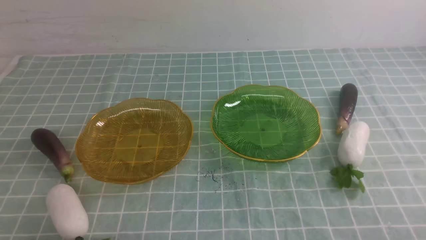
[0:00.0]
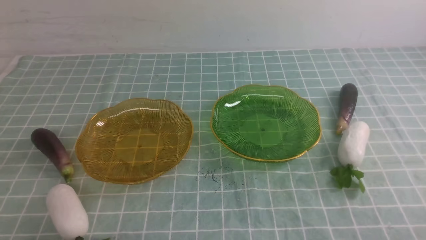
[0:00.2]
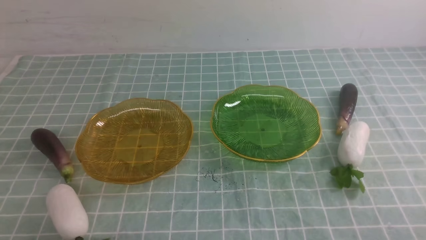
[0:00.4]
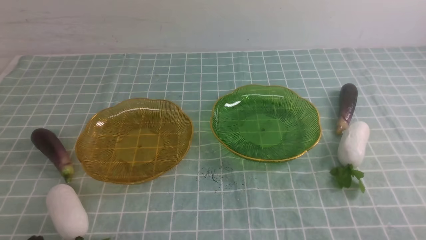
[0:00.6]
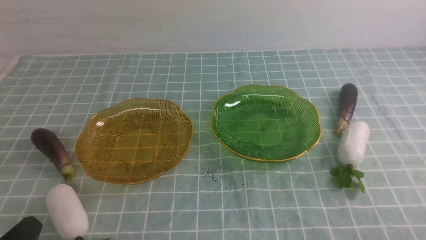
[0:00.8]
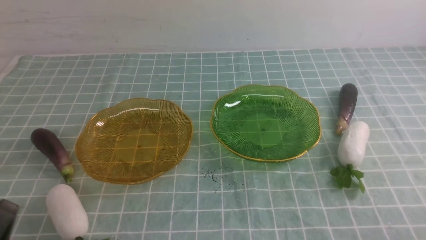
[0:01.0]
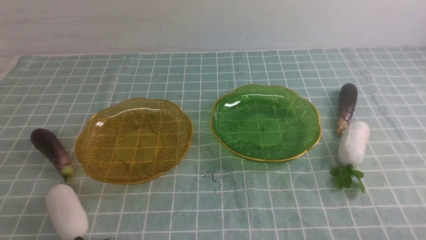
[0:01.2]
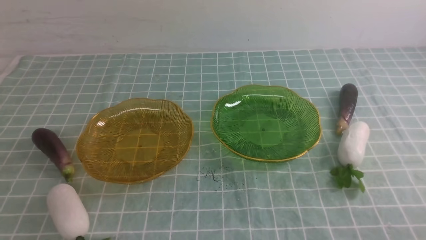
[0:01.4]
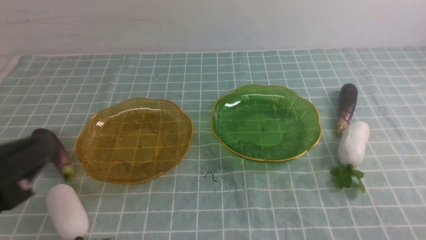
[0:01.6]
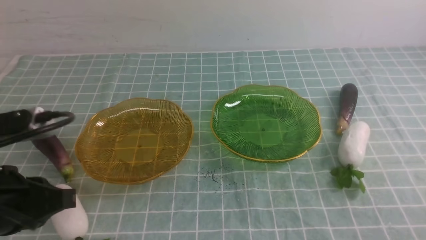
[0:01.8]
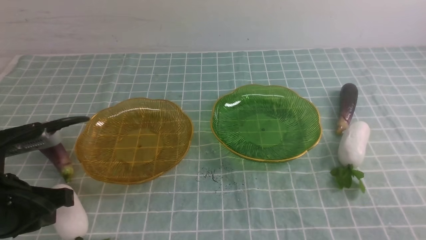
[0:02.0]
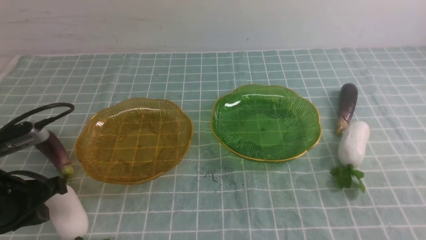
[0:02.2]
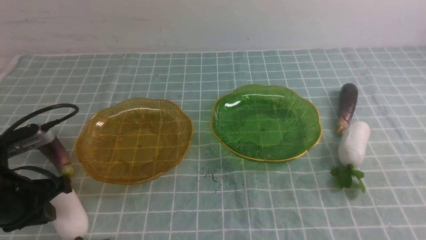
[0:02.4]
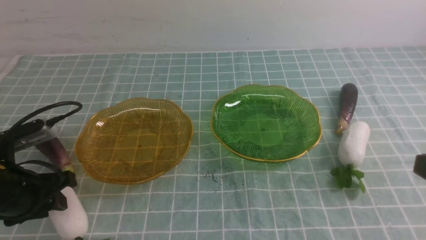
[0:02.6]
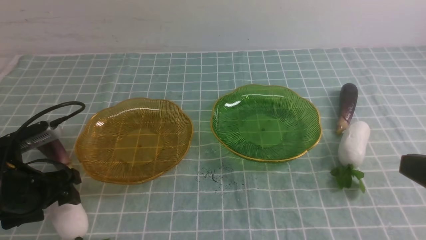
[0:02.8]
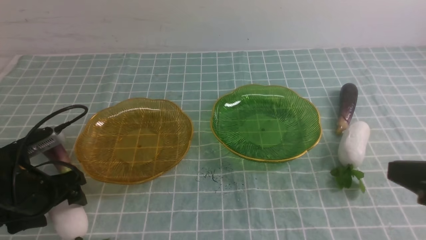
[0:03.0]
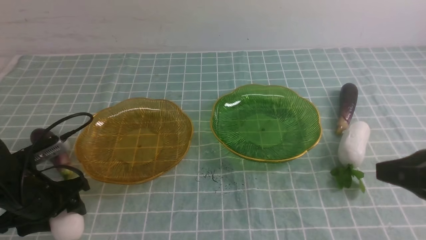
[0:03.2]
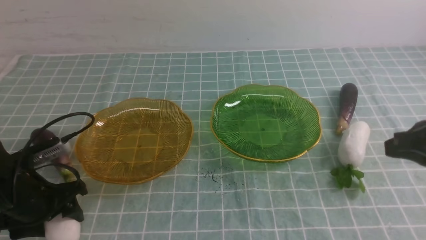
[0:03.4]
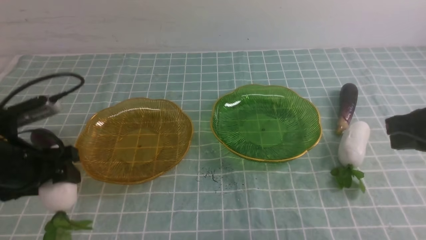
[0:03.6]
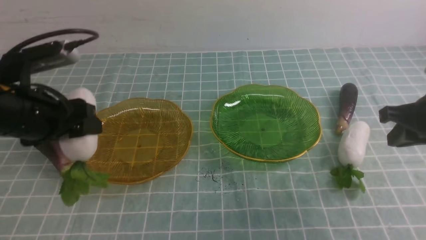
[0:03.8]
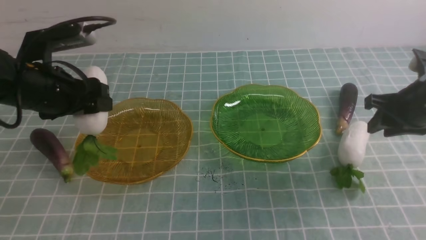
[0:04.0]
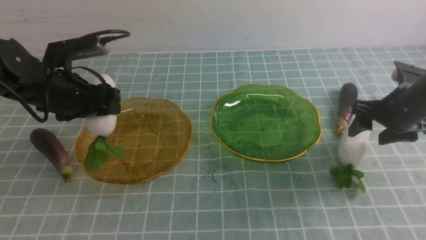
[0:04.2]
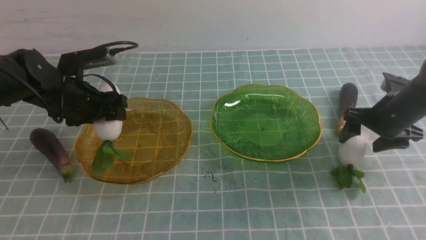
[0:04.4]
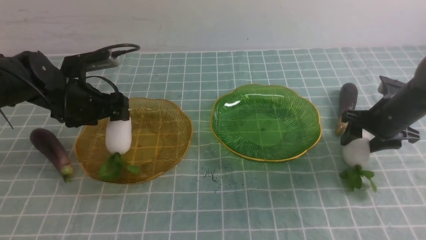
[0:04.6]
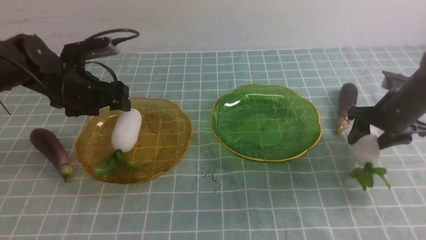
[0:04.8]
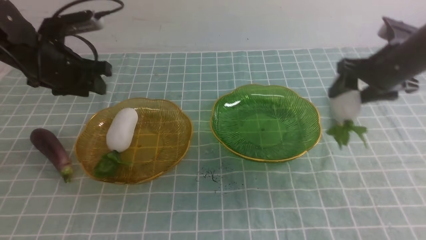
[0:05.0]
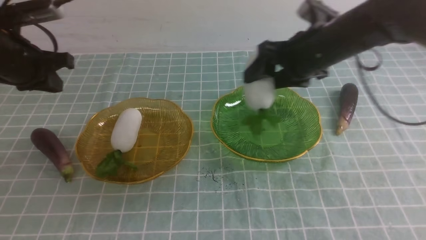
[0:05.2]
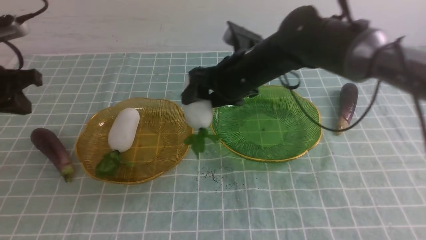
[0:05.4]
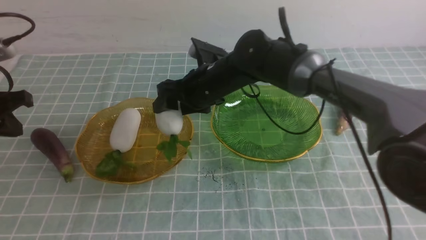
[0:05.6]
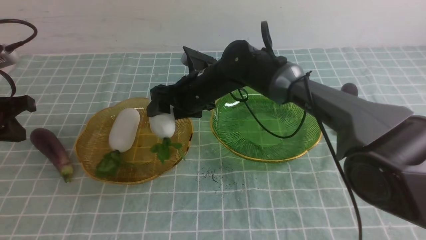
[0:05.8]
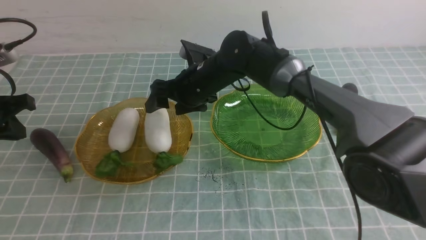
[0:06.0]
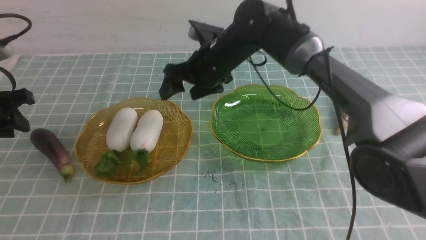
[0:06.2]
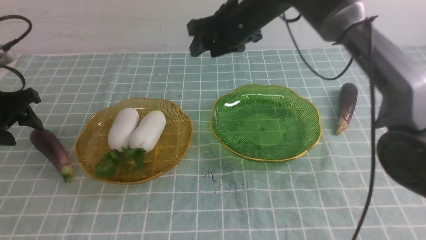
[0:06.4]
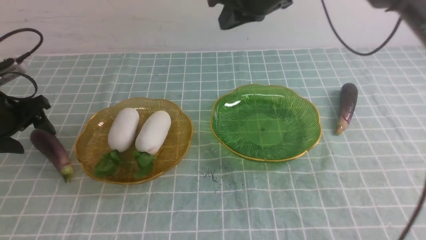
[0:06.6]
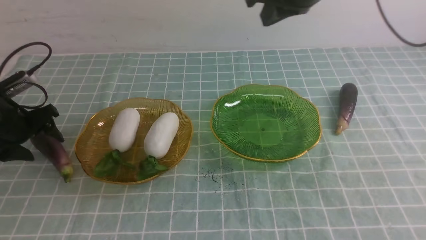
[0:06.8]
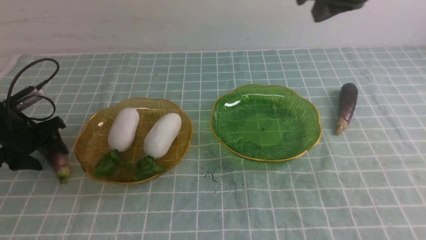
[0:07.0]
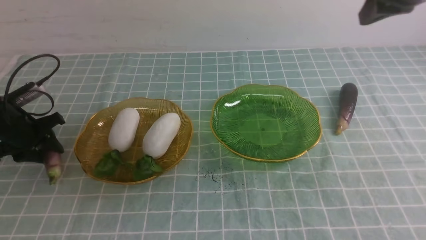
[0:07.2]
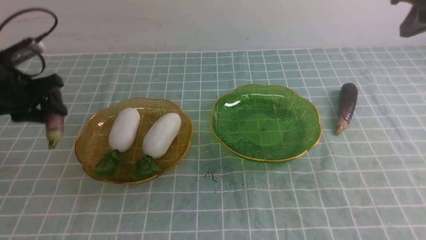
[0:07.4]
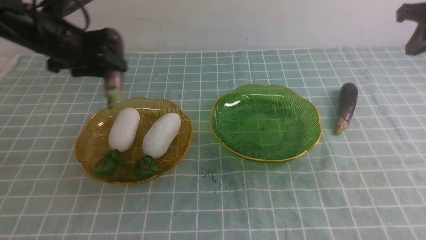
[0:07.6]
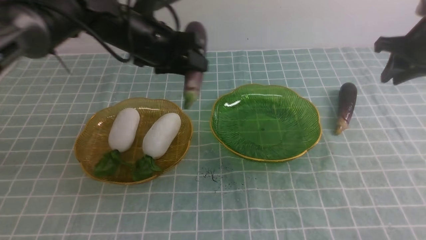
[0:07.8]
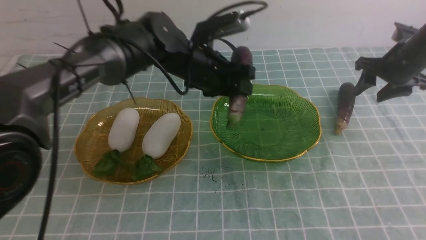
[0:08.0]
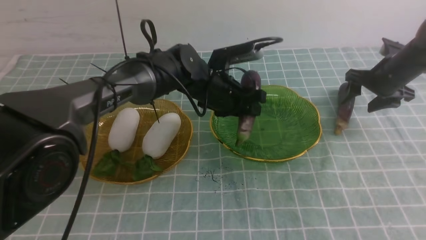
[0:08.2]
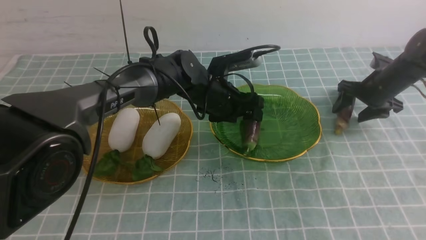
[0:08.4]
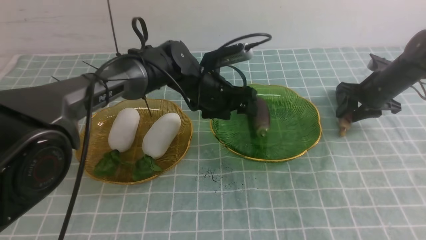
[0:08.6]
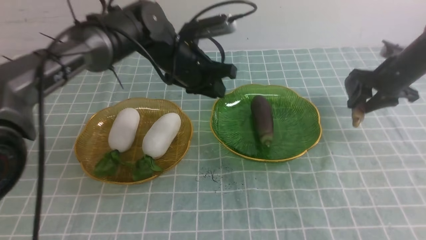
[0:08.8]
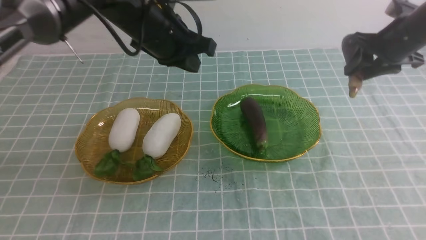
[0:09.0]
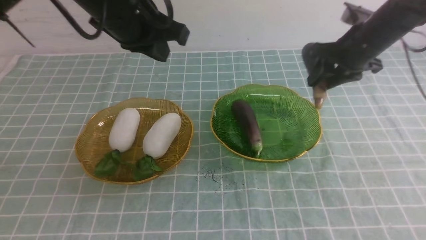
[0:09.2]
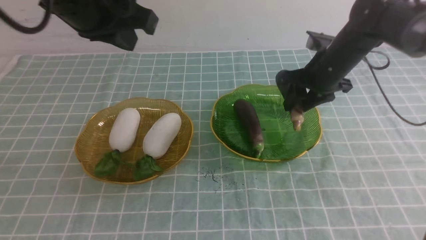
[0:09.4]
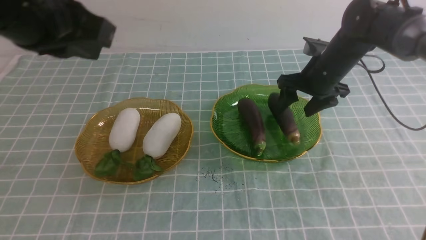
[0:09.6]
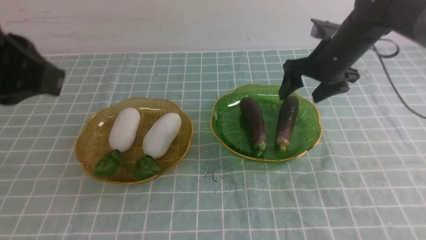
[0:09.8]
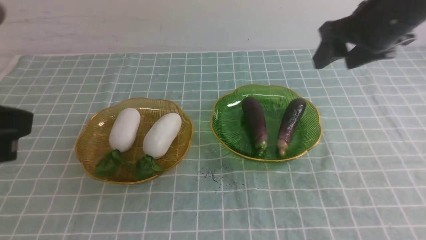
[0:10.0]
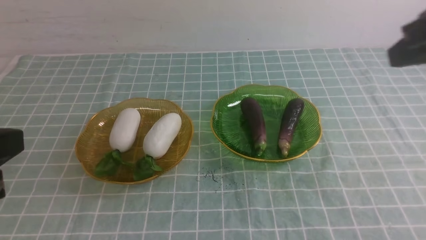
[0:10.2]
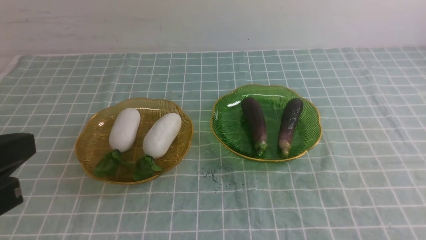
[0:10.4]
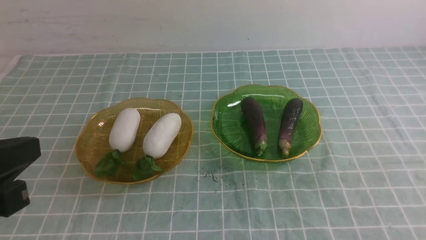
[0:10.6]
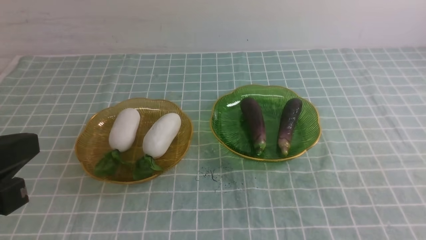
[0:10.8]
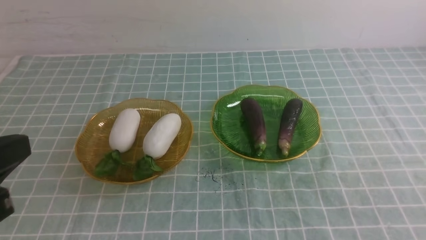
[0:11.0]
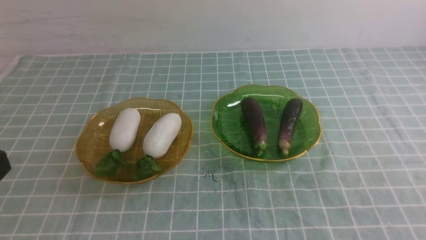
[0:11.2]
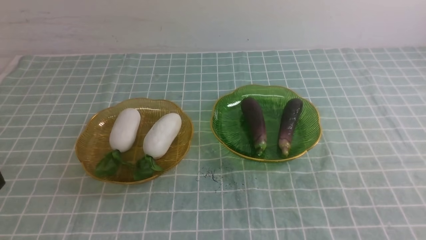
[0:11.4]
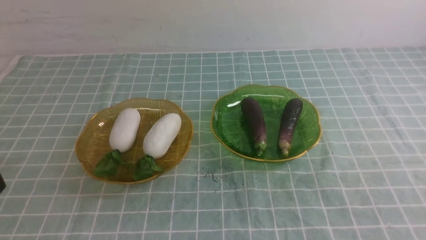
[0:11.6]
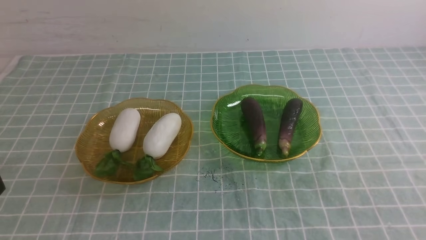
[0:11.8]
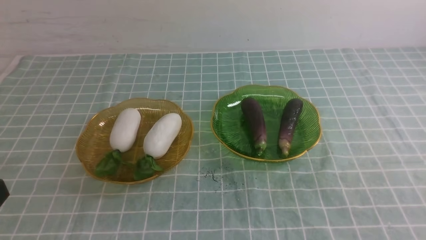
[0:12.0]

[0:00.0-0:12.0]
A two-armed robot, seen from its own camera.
Step, 0:00.0 to 0:04.6: use the left arm to grab a radish and put it into the left plate.
Step, 0:04.8 to 0:06.0: use the right arm to grab a radish and put it into the left plate.
Step, 0:06.2 to 0:08.4: use the left arm to grab an eggplant and put it into the right plate.
Step, 0:08.6 to 0:09.6: use the right arm to grab an eggplant and put it into the right plate.
0:00.0 to 0:01.6: The left gripper shifts roughly 15 cm upward.
0:01.6 to 0:03.0: The right gripper heads upward, forward and to the left, covering about 15 cm, while the left gripper is displaced downward and forward by roughly 20 cm, and opens up.
0:03.0 to 0:04.4: The right gripper travels forward and downward by roughly 30 cm, and opens; the left gripper heads forward, covering approximately 15 cm.
0:04.4 to 0:06.0: The left gripper goes approximately 15 cm to the left, backward and upward, and closes its fingers. The right gripper travels to the left by some 30 cm.
0:06.0 to 0:07.6: The left gripper is displaced to the right and forward by some 15 cm, and opens up; the right gripper shifts roughly 35 cm to the right, and closes its fingers.
0:07.6 to 0:09.0: The right gripper is displaced downward and to the left by roughly 10 cm, and opens; the left gripper goes approximately 15 cm to the right and upward, and closes up.
0:09.0 to 0:10.4: The left gripper moves backward and to the left, some 30 cm, while the right gripper heads backward, covering some 35 cm, and closes.
0:10.4 to 0:12.0: The left gripper moves downward and backward, some 10 cm.

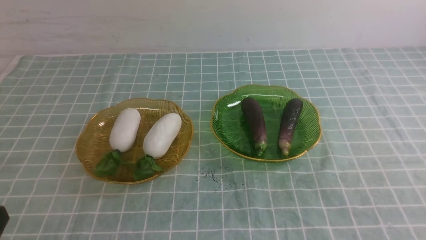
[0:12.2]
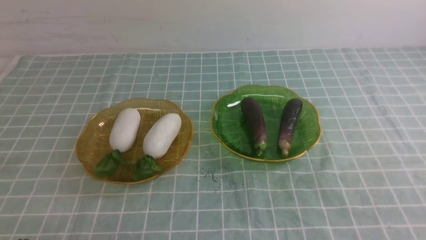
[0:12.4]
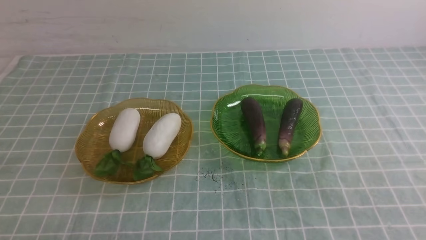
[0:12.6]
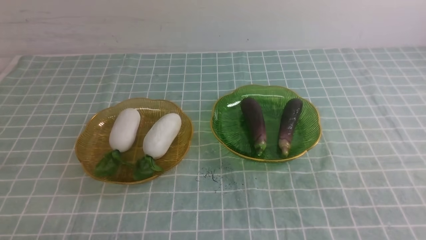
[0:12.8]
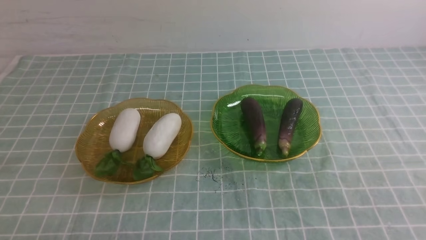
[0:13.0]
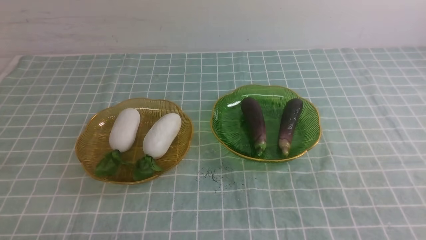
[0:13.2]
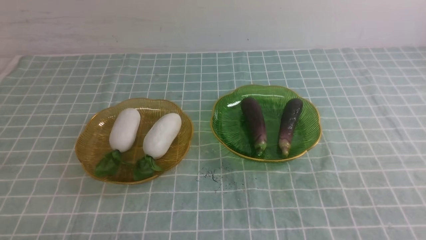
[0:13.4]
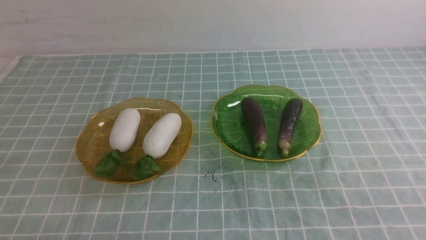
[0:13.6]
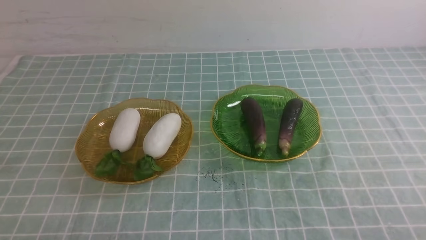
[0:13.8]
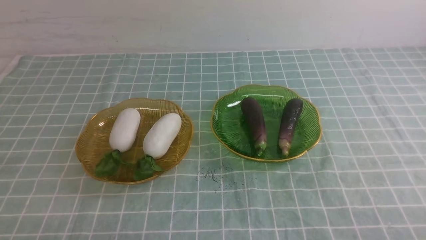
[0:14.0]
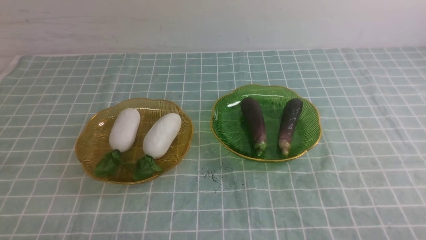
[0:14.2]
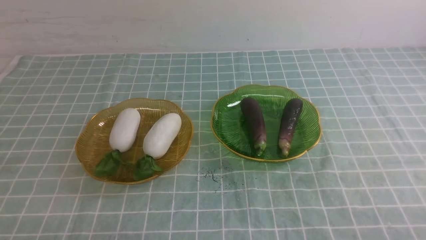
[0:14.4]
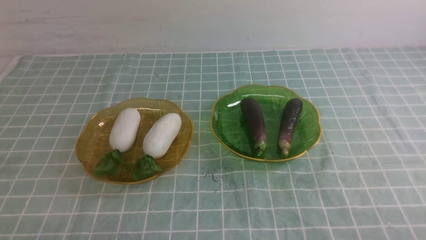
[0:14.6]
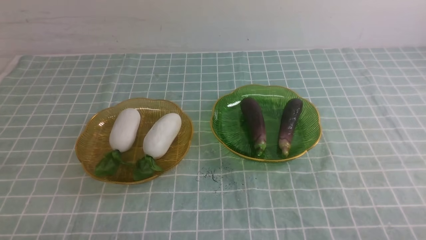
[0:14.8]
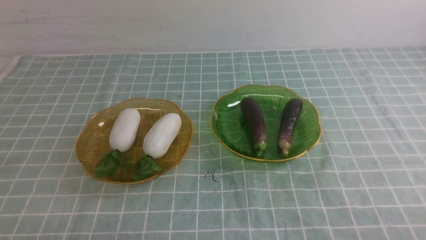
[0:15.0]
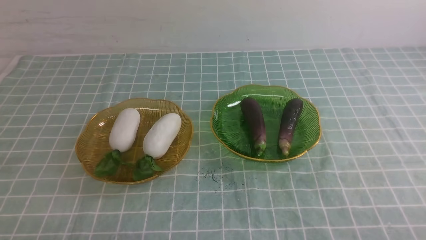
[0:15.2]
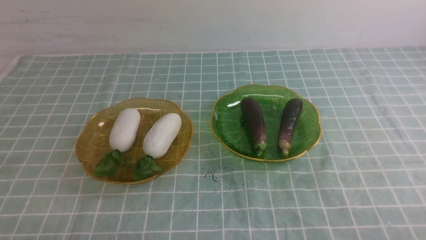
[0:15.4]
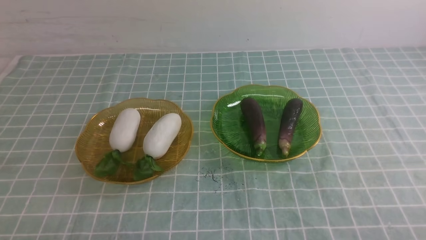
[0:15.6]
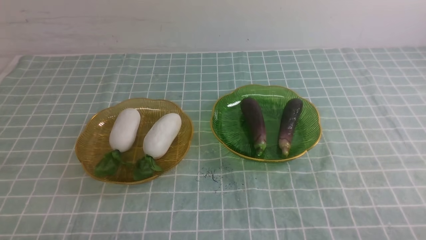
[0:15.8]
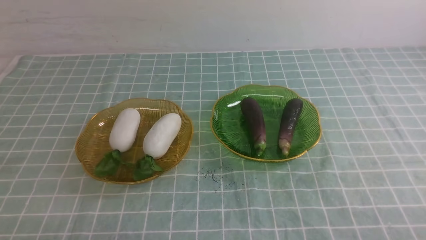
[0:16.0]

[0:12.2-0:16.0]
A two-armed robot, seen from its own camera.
0:14.8 to 0:16.0: Both grippers stay put.
